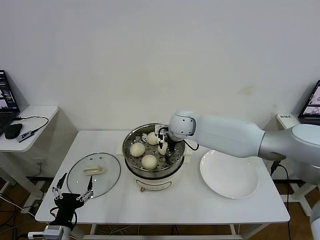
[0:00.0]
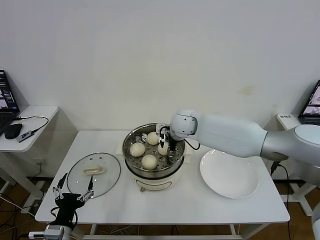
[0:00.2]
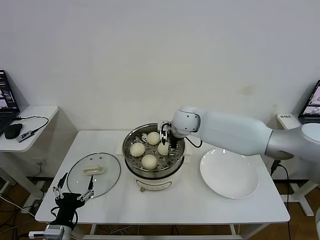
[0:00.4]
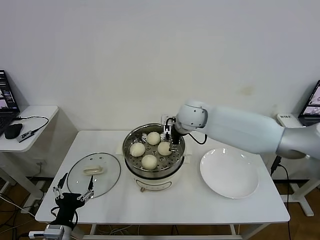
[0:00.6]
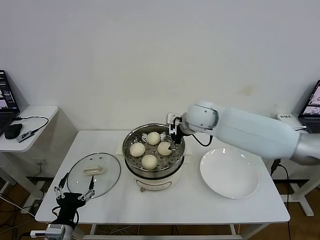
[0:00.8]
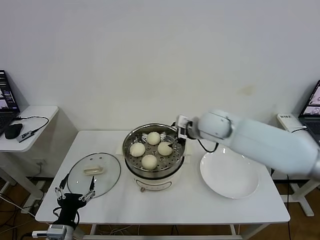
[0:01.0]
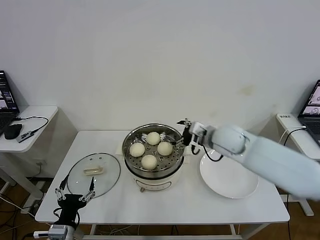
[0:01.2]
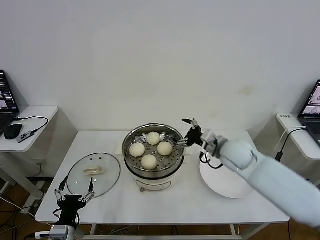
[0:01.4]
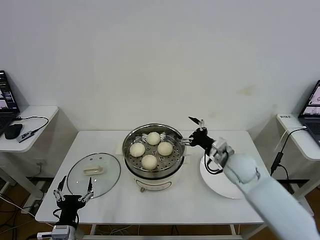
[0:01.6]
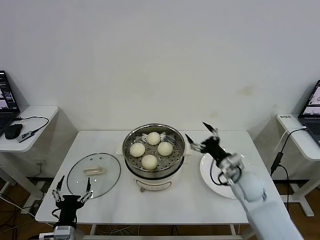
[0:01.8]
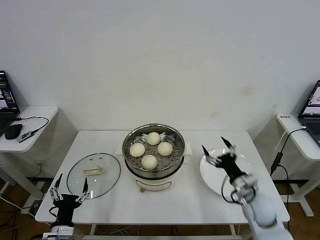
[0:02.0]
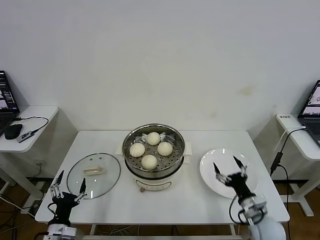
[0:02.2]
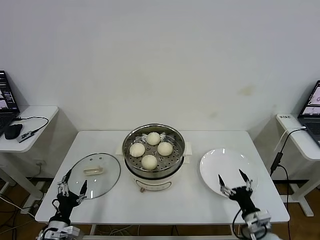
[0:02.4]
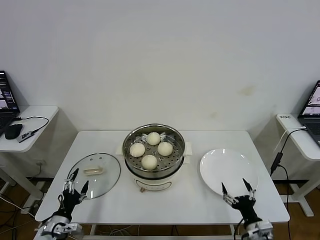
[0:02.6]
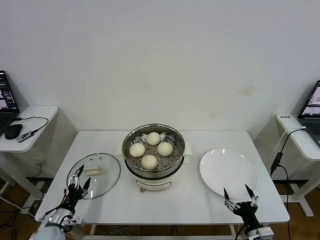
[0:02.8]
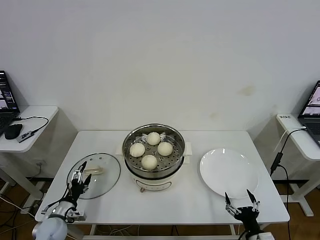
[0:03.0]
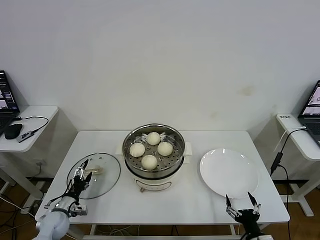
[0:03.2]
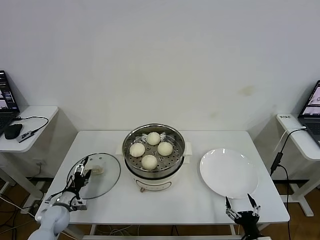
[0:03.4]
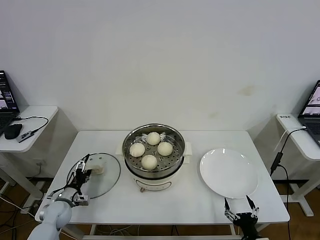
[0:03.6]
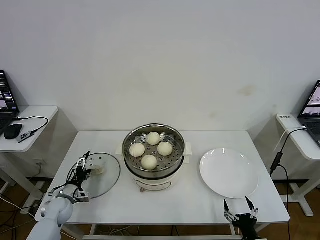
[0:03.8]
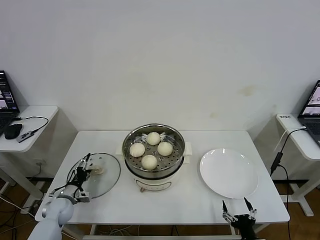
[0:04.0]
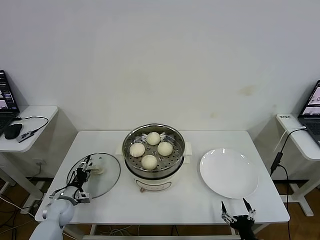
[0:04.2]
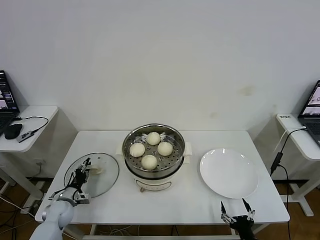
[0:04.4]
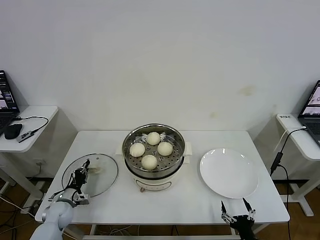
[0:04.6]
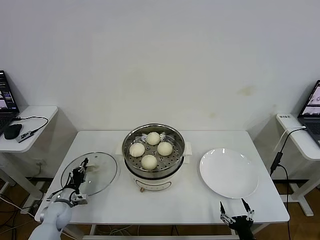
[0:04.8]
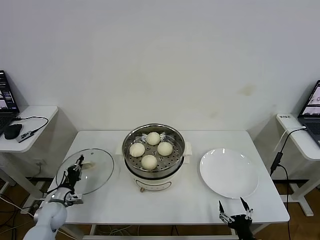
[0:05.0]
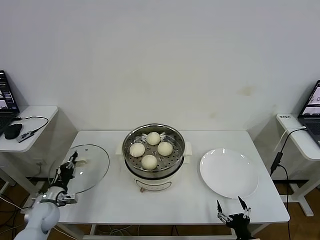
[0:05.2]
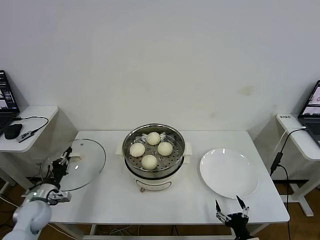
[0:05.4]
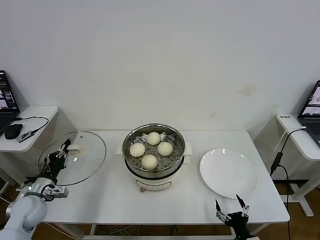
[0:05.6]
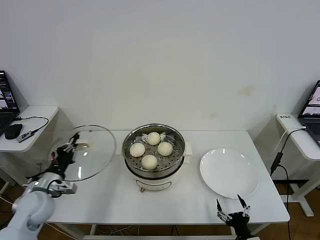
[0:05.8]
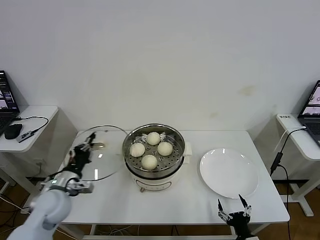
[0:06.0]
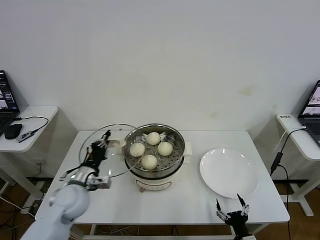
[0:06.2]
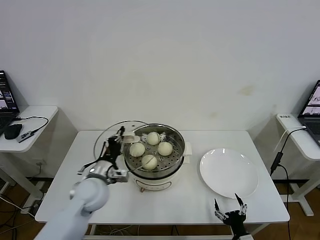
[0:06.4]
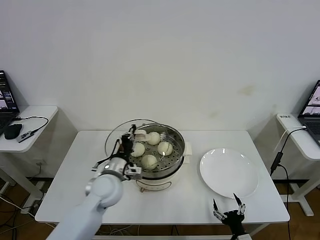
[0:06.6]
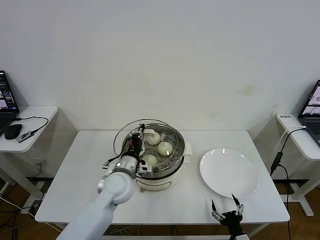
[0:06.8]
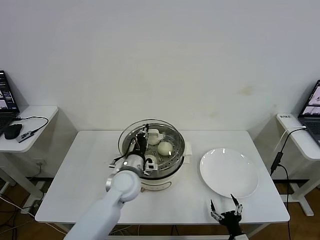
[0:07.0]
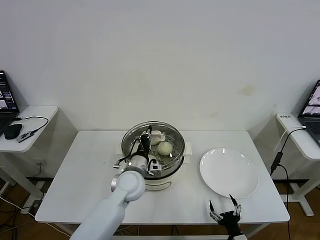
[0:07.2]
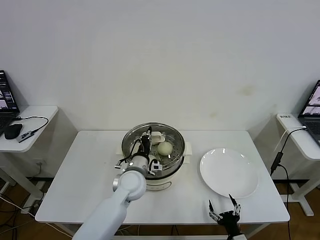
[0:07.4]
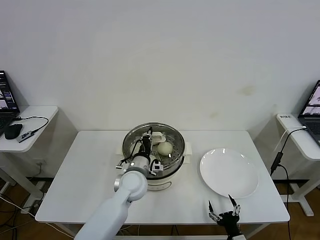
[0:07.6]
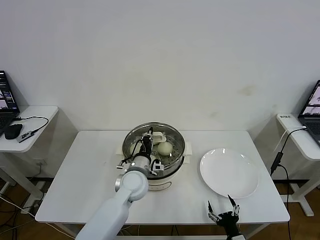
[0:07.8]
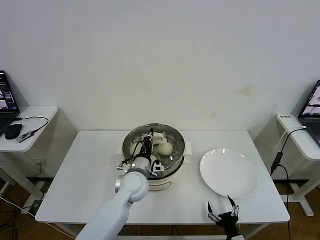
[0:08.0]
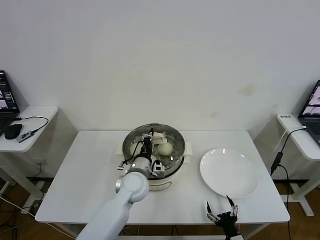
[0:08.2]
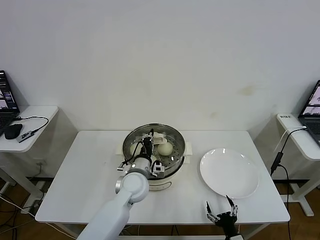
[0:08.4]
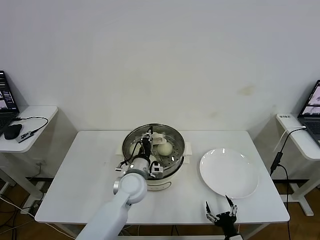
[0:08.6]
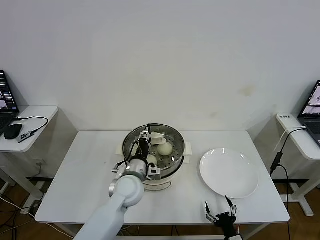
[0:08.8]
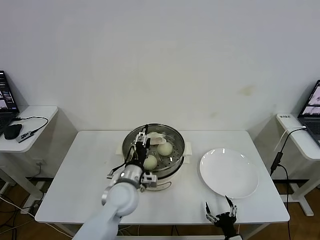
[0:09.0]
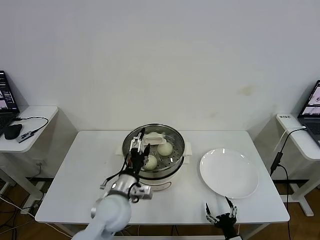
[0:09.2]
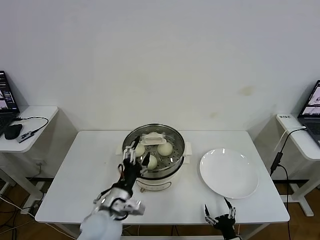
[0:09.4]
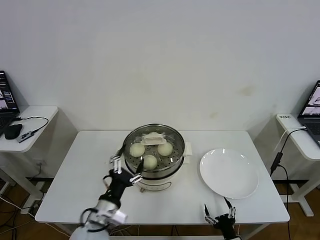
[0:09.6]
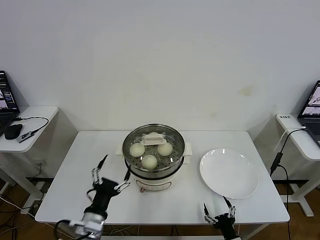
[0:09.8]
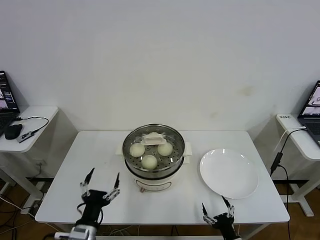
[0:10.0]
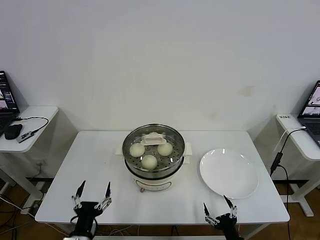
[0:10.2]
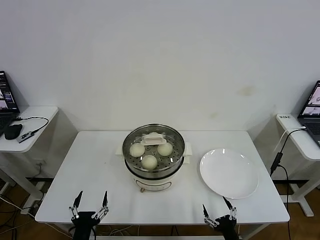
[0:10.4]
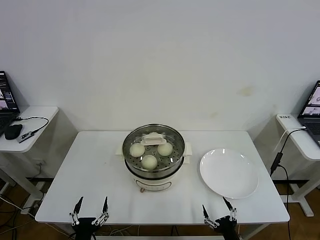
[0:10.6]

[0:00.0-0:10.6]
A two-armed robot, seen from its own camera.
Task of the whole recording: take steamed baozi put them in steamer then cover it.
Step, 0:00.4 to 0:04.6: Grasp the pot lid with left gripper.
Step, 0:05.0 to 0:08.6: Place the pot lid on the steamer with left gripper.
0:00.0 to 0:01.6: The right gripper goes some 20 cm to the right and backward, and opens up.
0:01.6 to 0:03.0: The right gripper heads backward and downward, covering roughly 30 cm, while the left gripper goes about 15 cm forward, to the left and downward.
0:03.0 to 0:04.6: The left gripper heads forward, covering roughly 5 cm, and closes its fingers.
0:04.6 to 0:06.0: The left gripper shifts some 20 cm upward and to the right.
0:06.0 to 0:07.6: The left gripper goes approximately 25 cm to the right.
0:07.6 to 0:09.0: The left gripper opens up.
0:09.0 to 0:10.6: The left gripper goes approximately 30 cm backward, to the left and downward.
